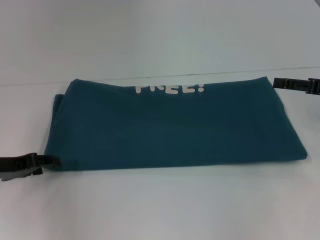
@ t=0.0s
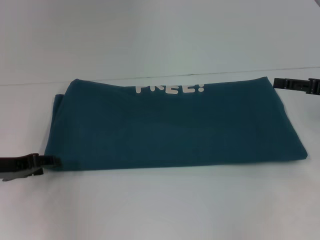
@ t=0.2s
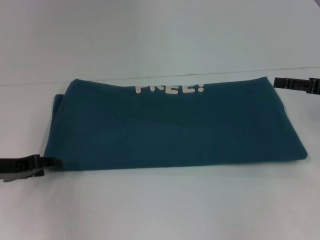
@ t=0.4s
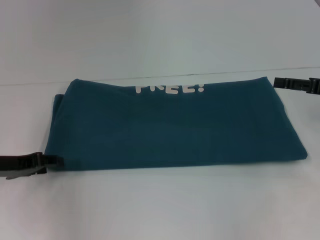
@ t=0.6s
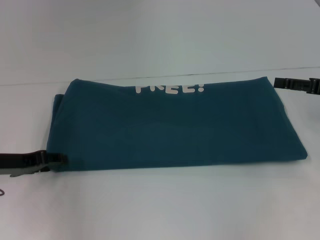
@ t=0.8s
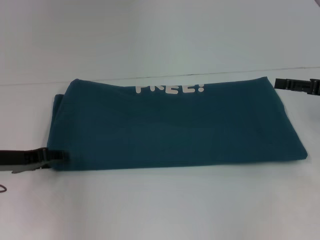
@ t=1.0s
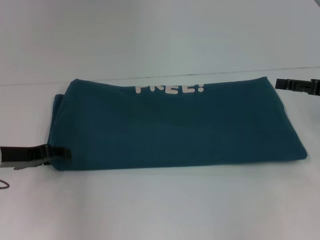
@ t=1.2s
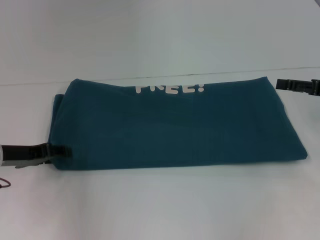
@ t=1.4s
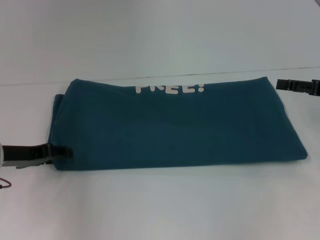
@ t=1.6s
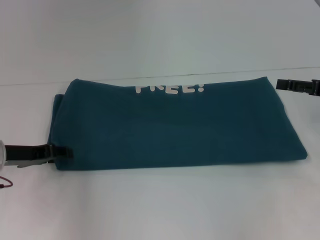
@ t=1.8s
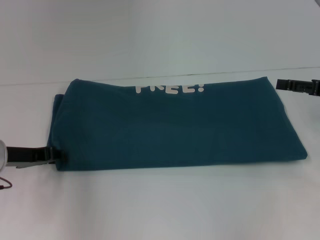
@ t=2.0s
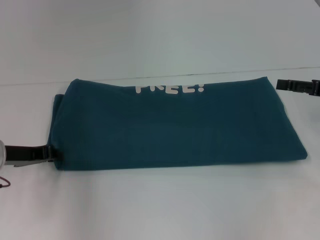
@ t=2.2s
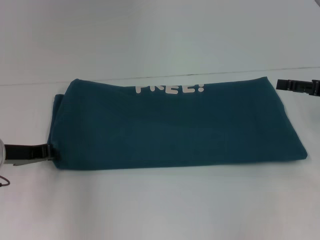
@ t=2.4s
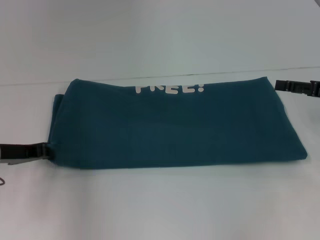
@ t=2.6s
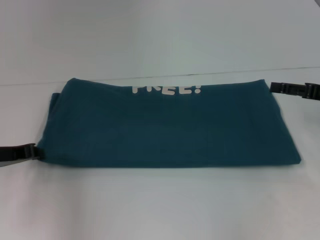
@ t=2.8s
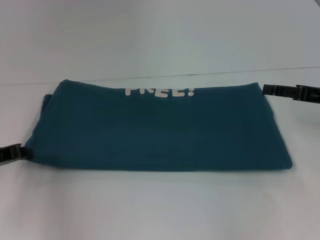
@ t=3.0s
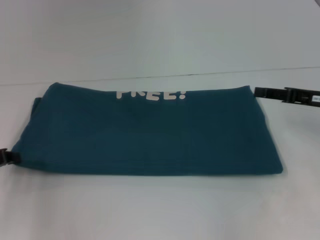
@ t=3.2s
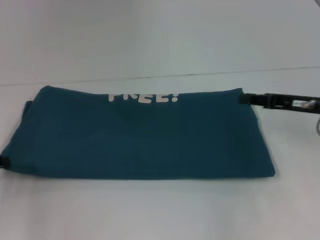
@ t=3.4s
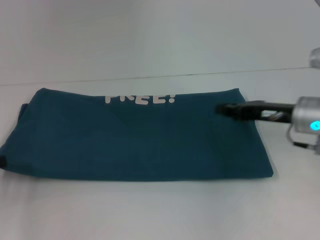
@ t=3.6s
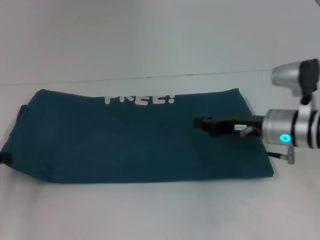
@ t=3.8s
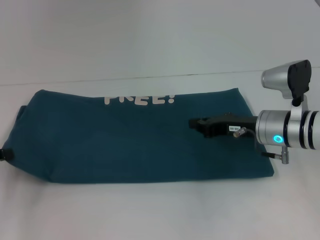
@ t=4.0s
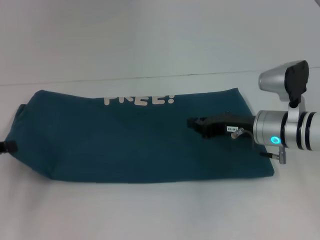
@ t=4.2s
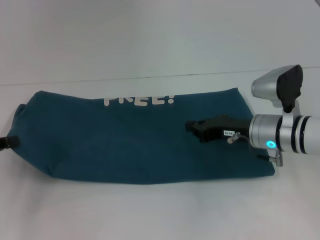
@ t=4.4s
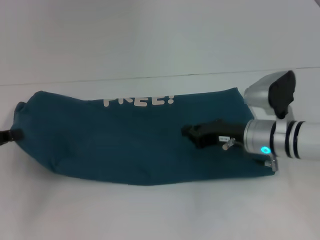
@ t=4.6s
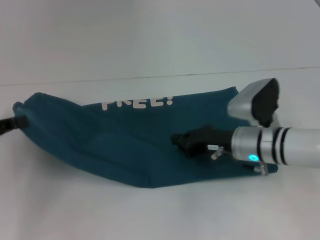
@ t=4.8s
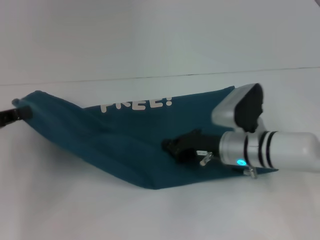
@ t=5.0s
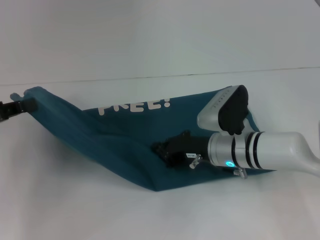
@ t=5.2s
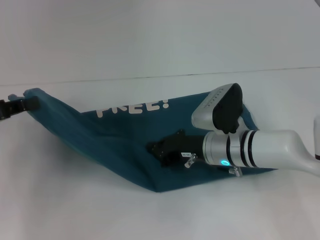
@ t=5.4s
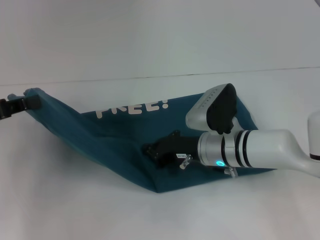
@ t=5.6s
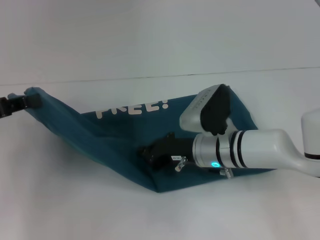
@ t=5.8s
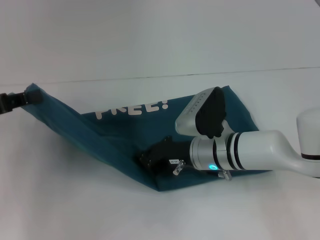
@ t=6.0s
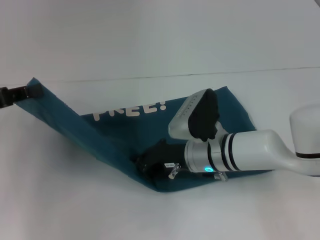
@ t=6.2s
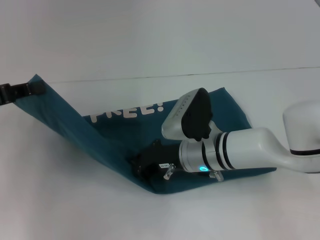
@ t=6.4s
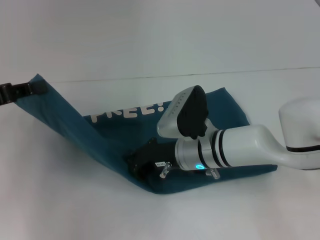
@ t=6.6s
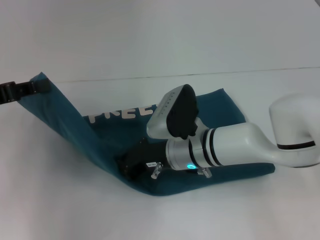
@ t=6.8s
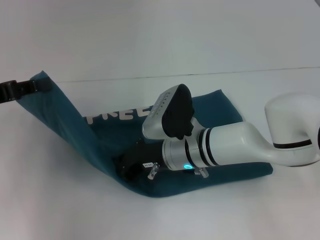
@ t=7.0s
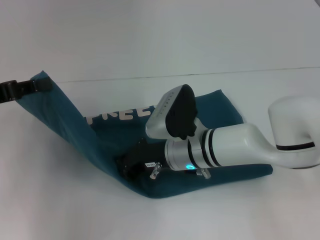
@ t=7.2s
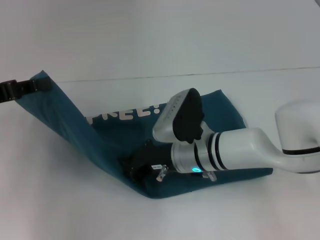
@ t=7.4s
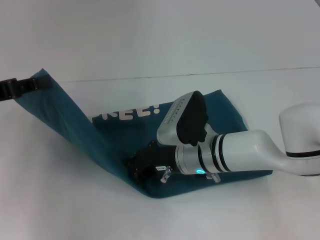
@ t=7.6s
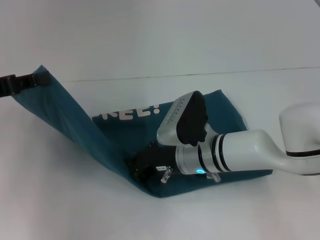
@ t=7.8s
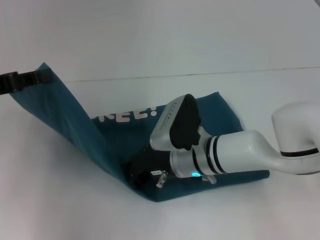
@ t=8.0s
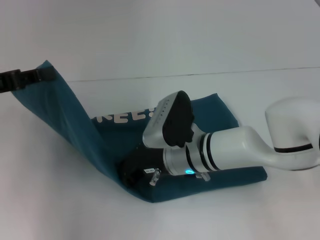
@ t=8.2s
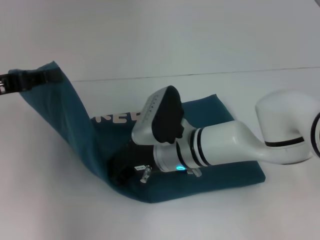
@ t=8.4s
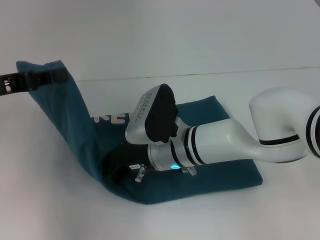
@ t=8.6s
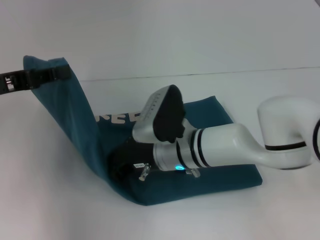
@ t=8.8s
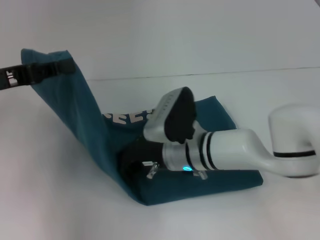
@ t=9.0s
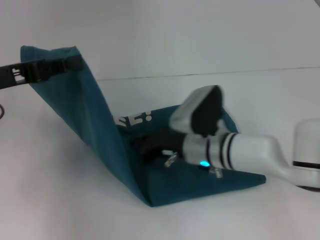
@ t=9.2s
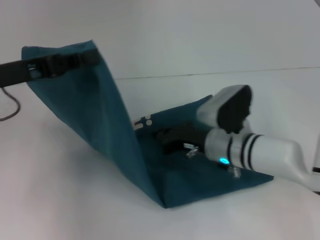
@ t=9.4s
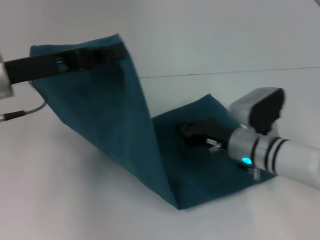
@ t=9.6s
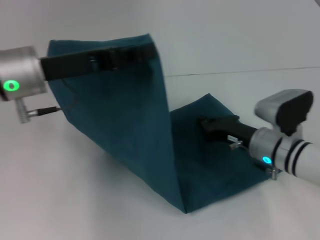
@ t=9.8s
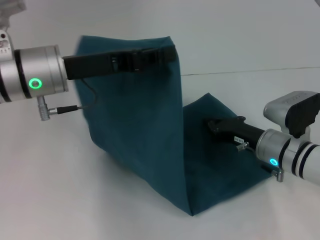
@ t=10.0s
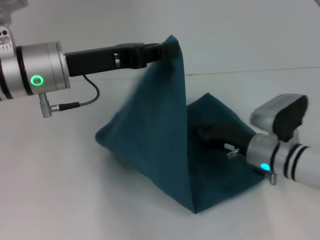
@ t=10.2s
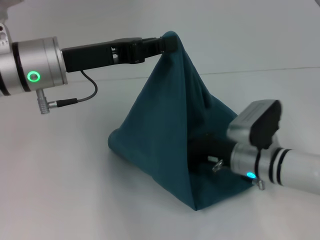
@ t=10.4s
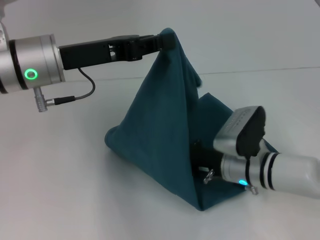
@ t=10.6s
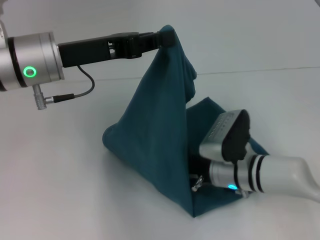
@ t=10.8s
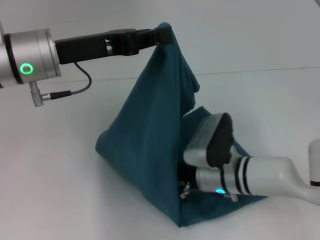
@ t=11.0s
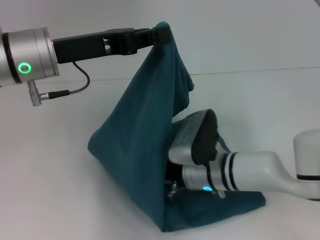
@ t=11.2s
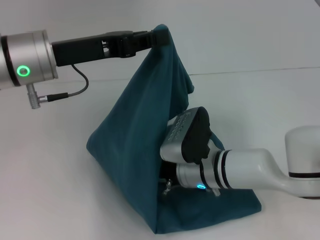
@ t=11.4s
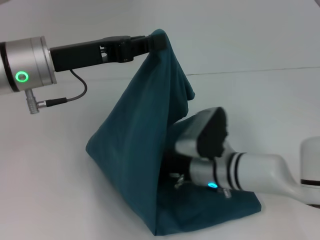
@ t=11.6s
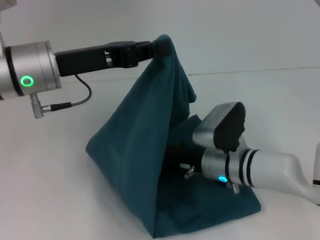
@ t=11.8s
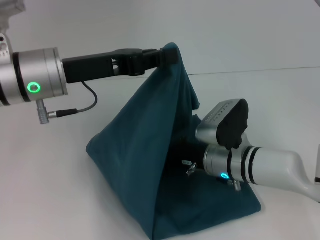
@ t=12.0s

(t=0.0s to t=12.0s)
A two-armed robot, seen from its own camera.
Step, t=0.0s - t=9.2s: Press the middle of the clothes with your right hand.
t=0.0s - t=1.6s: The grippers stay close to where they were, moving slightly.
t=1.6s - t=3.0s: The left gripper closes up.
t=3.0s - t=4.4s: The right gripper goes approximately 15 cm to the left and downward, and closes up, while the left gripper changes place by approximately 5 cm.
t=4.4s - t=6.0s: The left gripper is displaced upward by some 5 cm; the right gripper heads to the left, covering roughly 10 cm.
t=6.0s - t=7.6s: The grippers make only small movements.
t=7.6s - t=9.0s: The grippers make only small movements.
t=9.0s - t=10.4s: The two grippers go roughly 10 cm to the right.

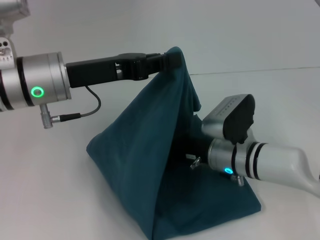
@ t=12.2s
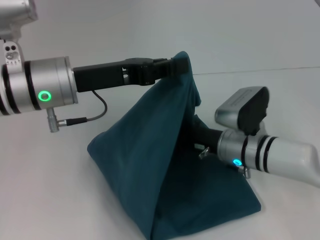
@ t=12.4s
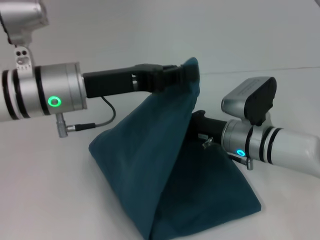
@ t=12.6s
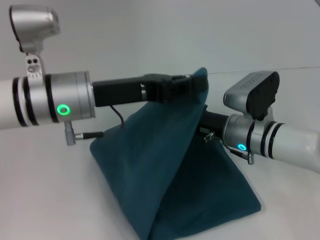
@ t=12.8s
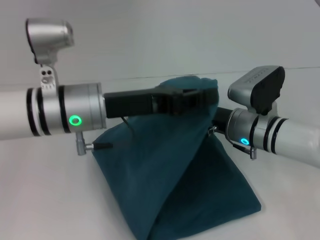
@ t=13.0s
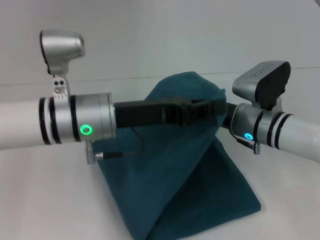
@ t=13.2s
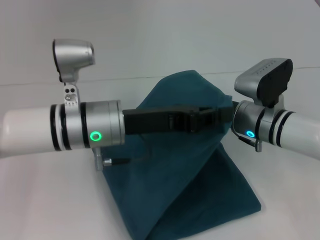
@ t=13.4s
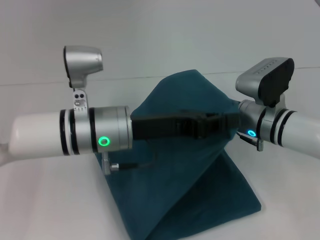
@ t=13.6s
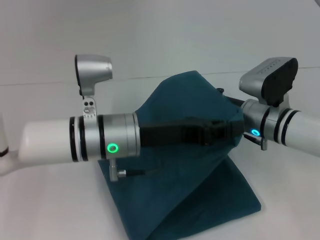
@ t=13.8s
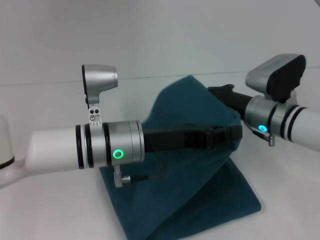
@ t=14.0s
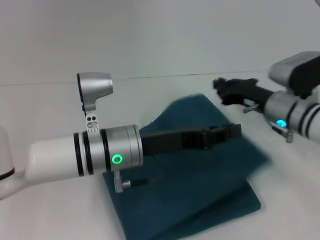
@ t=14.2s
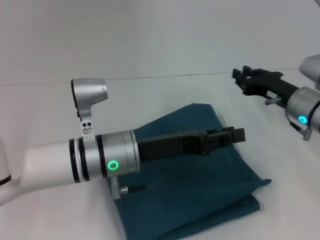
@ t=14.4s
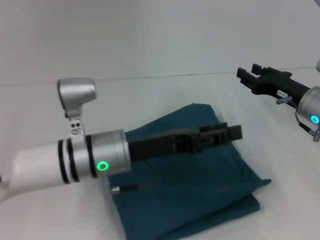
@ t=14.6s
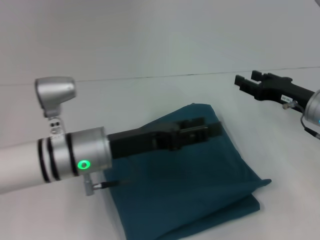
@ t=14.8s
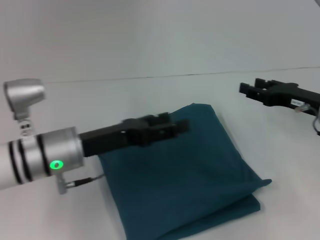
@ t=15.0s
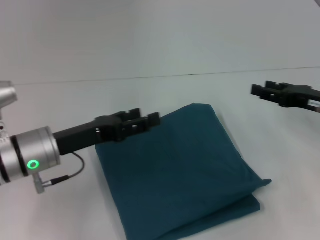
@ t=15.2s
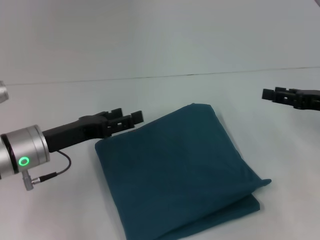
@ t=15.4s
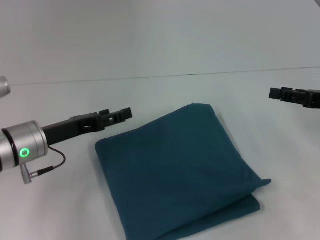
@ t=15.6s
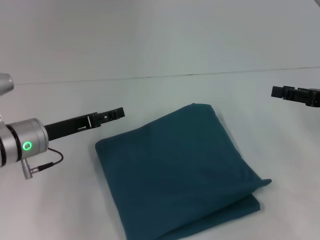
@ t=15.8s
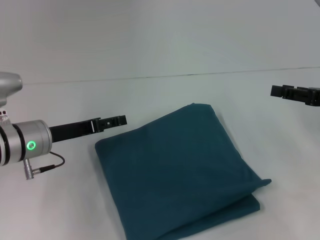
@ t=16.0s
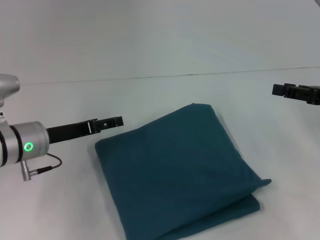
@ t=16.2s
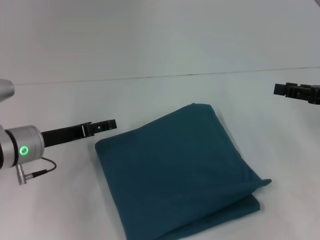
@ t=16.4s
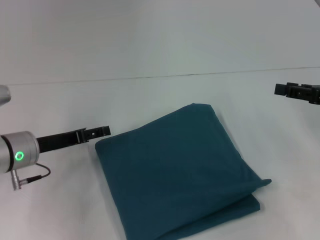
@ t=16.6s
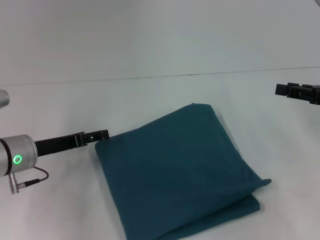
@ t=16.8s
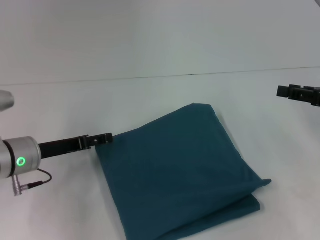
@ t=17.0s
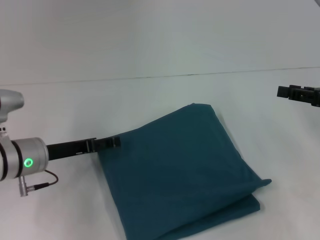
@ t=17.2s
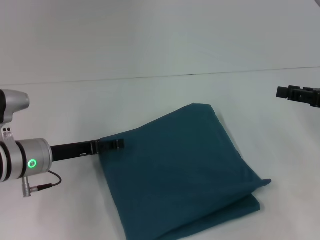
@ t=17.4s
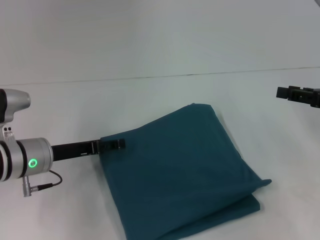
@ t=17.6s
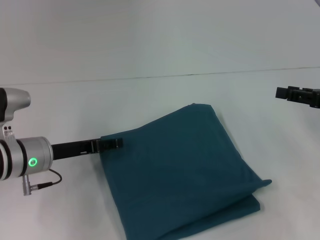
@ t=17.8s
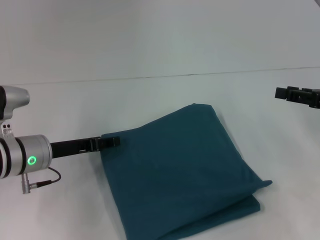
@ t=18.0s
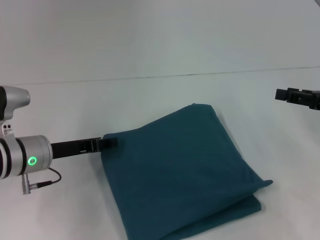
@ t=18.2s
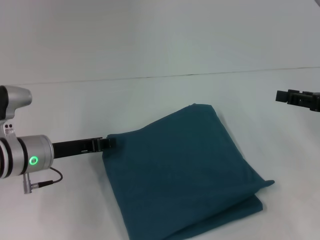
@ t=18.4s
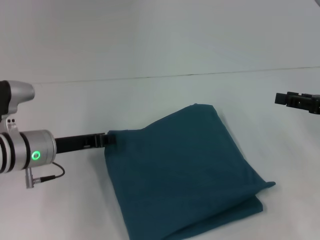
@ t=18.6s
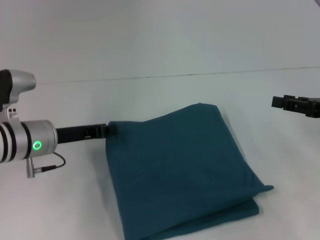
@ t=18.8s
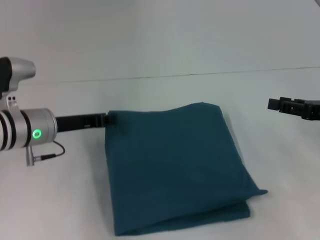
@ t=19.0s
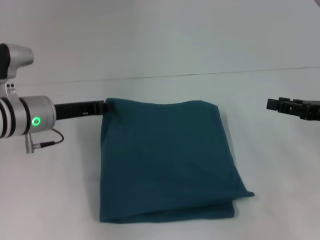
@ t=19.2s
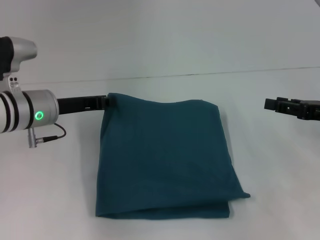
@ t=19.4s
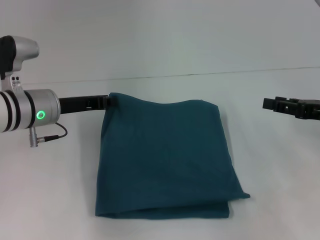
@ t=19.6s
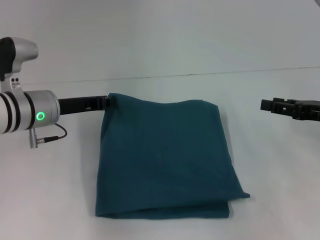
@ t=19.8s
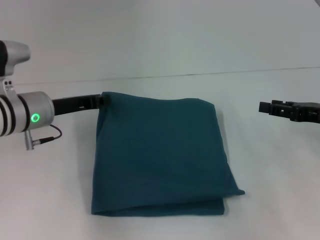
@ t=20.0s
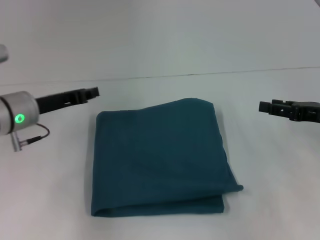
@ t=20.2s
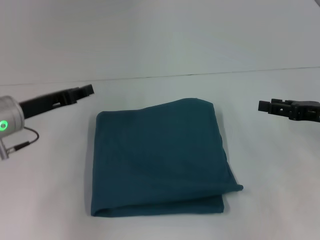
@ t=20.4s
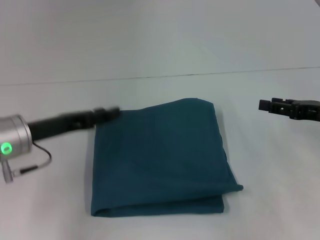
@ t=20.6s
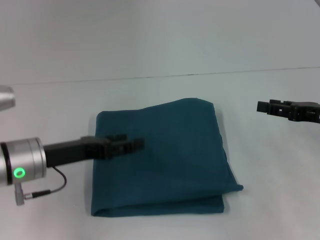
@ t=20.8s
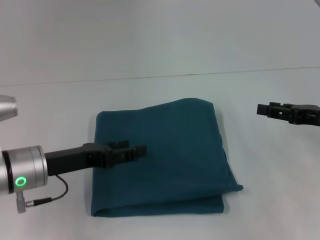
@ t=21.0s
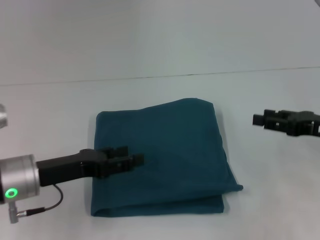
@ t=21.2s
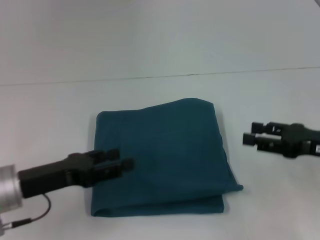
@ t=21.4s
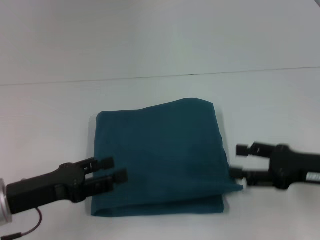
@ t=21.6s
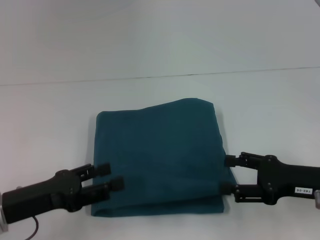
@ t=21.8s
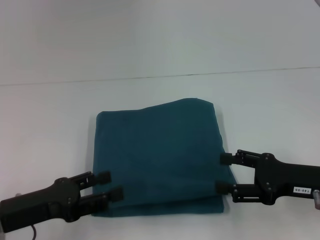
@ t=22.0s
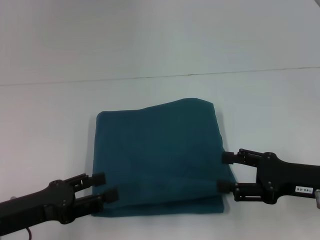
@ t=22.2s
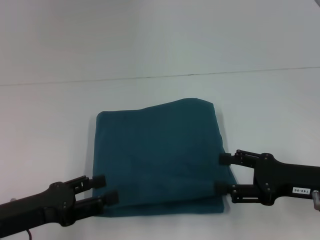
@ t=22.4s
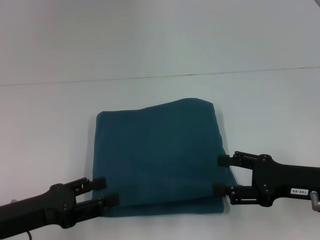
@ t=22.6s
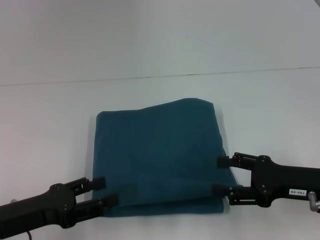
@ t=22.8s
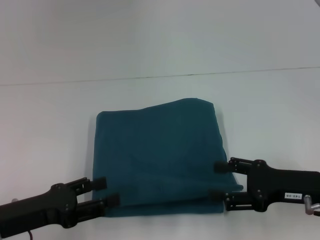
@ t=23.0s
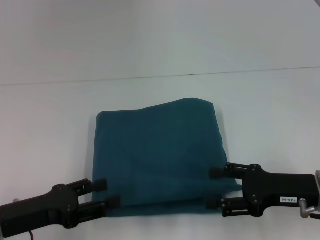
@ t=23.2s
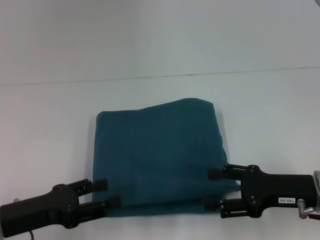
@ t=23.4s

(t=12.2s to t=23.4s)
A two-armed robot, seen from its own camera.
Step, t=12.2s - t=14.6s: Fold the clothes to the left.
t=12.2s - t=13.8s: The right gripper changes place by about 5 cm. Meanwhile the left gripper heads to the right and downward, covering approximately 10 cm.
t=13.8s - t=15.4s: The left gripper goes roughly 15 cm to the left, and opens its fingers. Meanwhile the right gripper is displaced to the right by roughly 15 cm, and opens its fingers.
t=17.0s - t=18.6s: The left gripper closes its fingers.
t=18.6s - t=20.2s: The left gripper ends up about 5 cm from where it was.
t=20.2s - t=21.8s: The left gripper shifts roughly 15 cm backward, and opens. The right gripper goes about 10 cm backward and to the left.
t=21.8s - t=23.4s: The grippers make only small movements.
